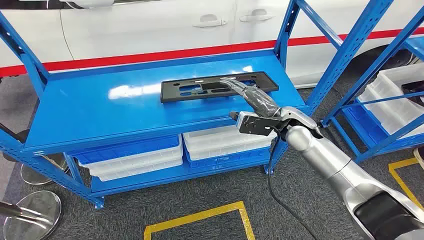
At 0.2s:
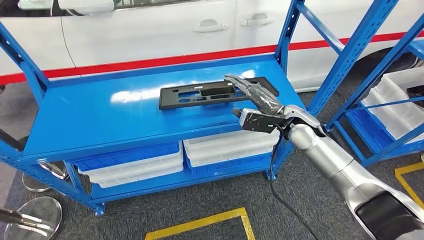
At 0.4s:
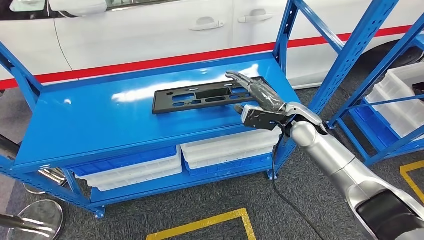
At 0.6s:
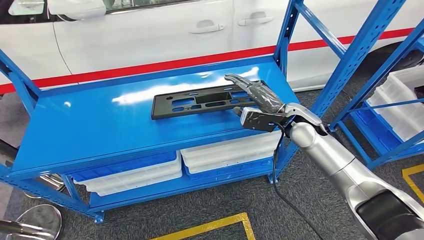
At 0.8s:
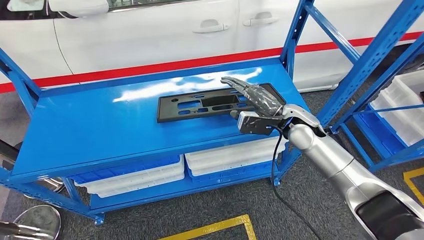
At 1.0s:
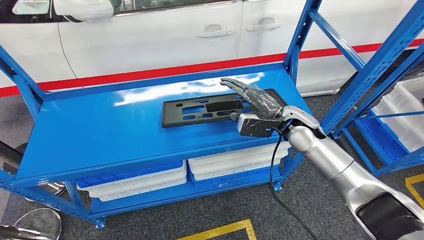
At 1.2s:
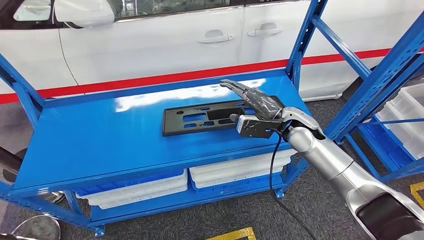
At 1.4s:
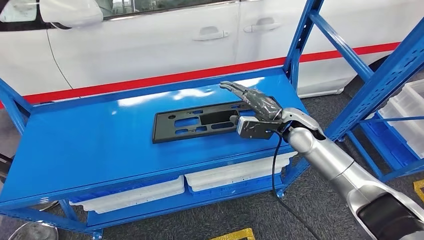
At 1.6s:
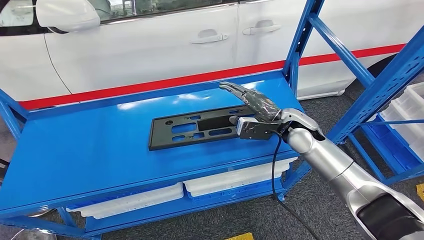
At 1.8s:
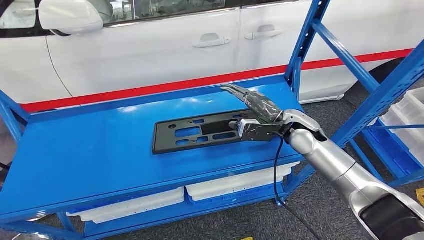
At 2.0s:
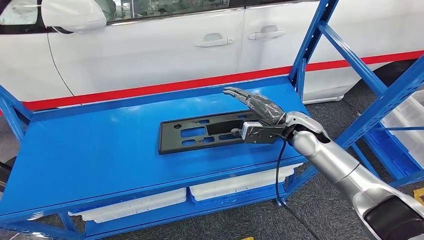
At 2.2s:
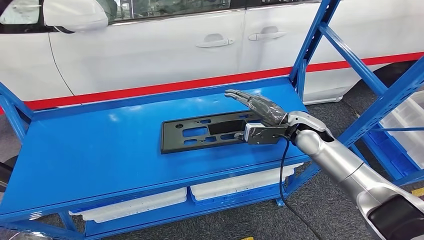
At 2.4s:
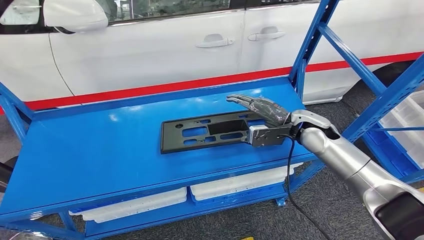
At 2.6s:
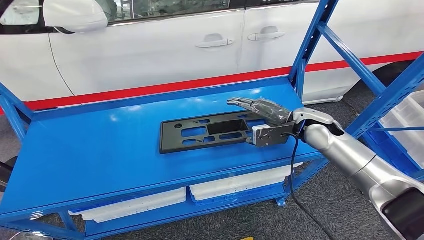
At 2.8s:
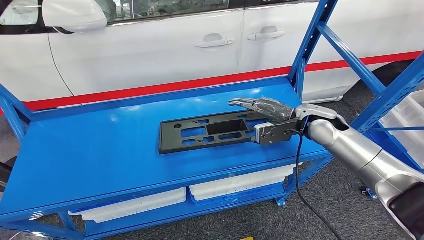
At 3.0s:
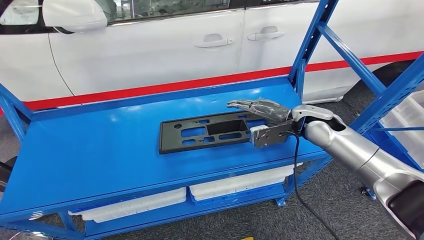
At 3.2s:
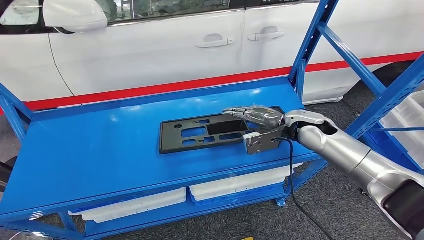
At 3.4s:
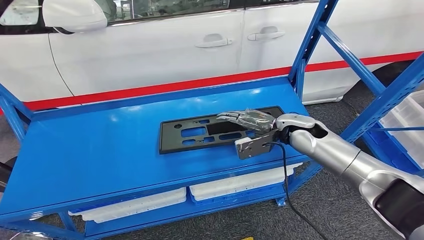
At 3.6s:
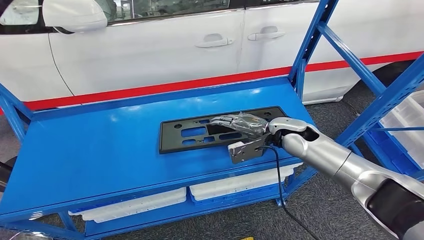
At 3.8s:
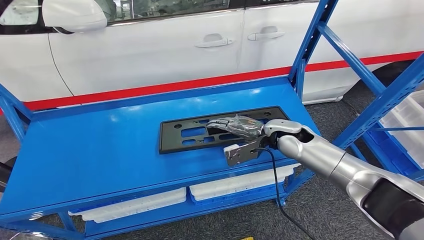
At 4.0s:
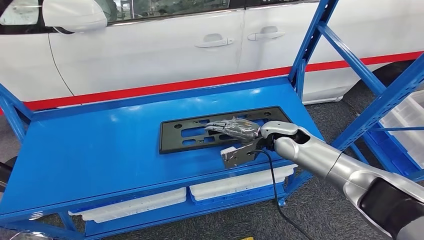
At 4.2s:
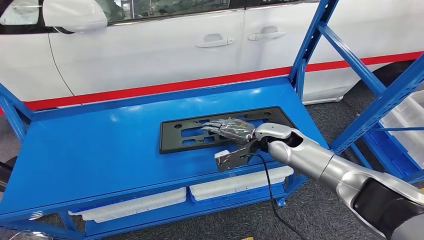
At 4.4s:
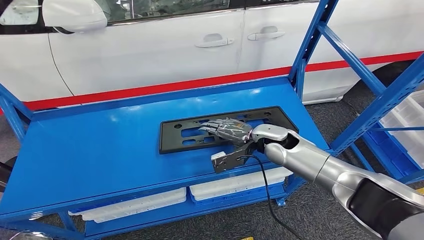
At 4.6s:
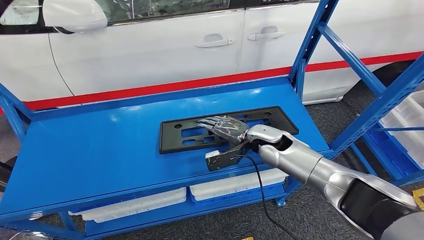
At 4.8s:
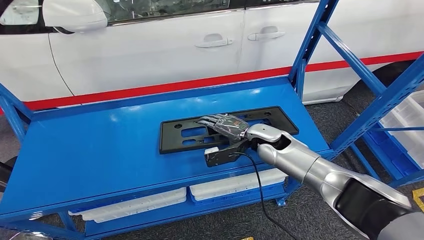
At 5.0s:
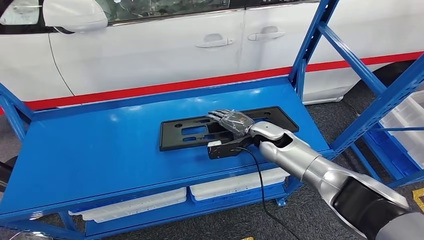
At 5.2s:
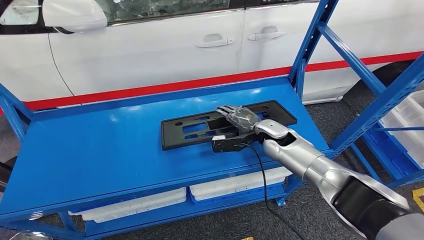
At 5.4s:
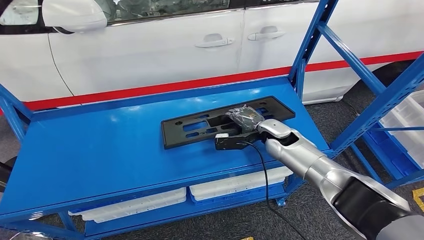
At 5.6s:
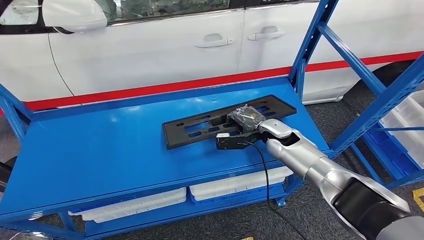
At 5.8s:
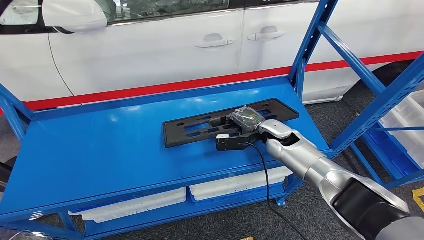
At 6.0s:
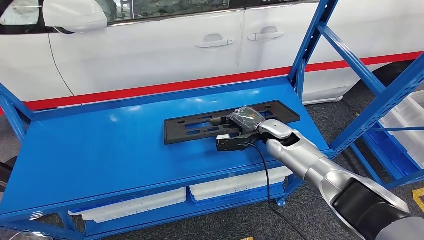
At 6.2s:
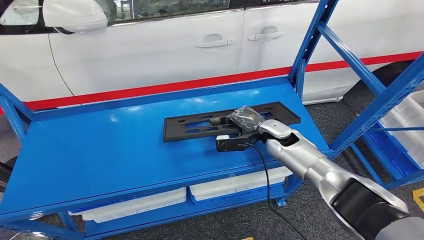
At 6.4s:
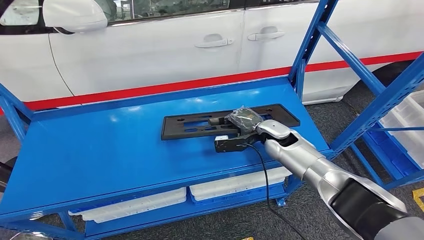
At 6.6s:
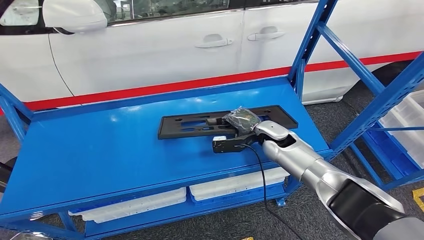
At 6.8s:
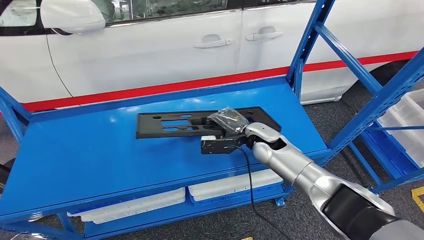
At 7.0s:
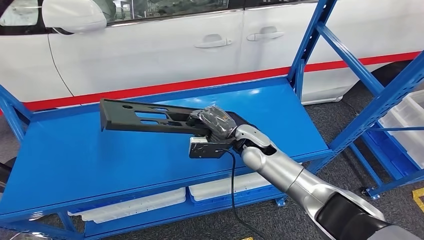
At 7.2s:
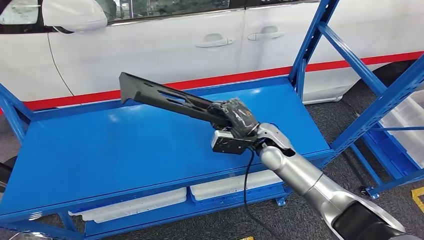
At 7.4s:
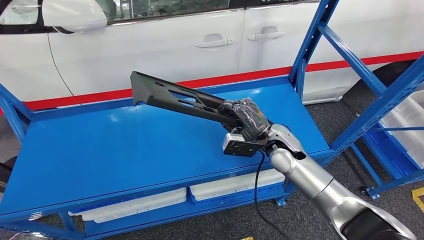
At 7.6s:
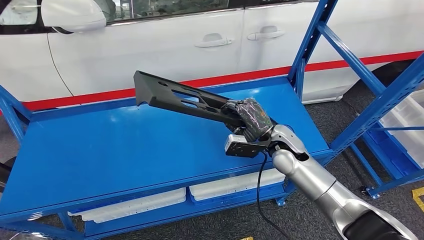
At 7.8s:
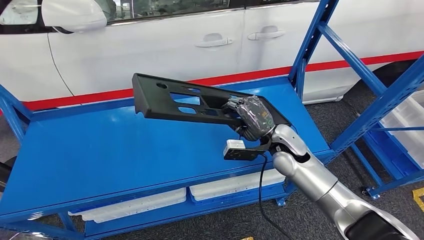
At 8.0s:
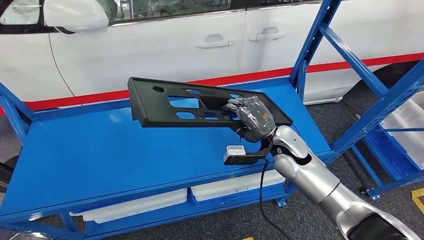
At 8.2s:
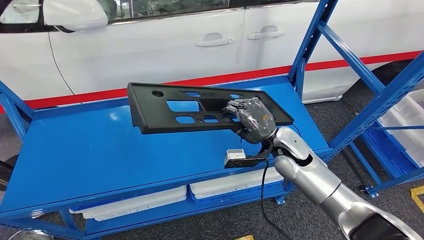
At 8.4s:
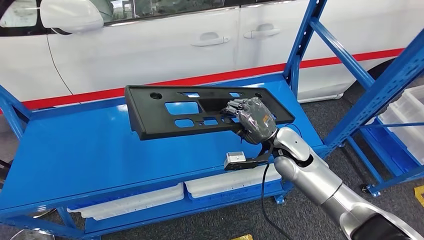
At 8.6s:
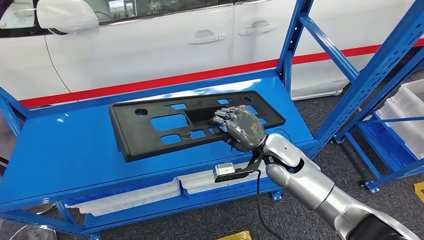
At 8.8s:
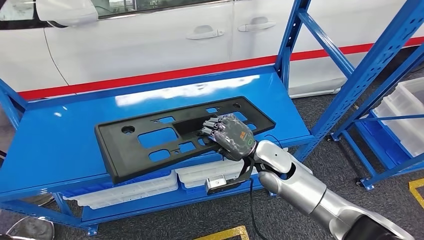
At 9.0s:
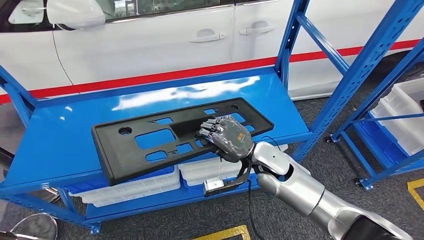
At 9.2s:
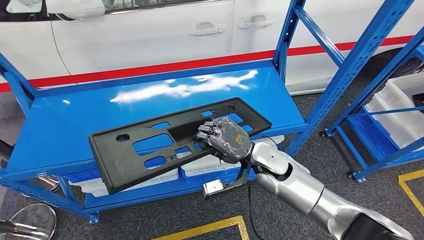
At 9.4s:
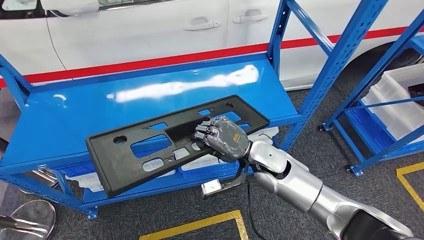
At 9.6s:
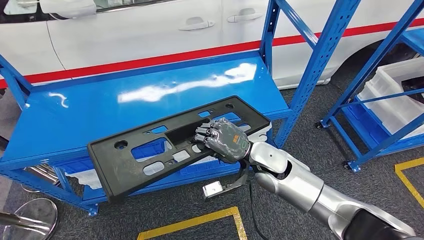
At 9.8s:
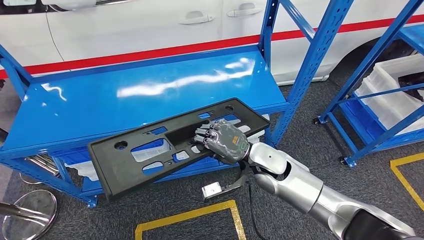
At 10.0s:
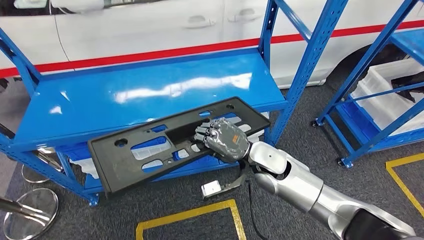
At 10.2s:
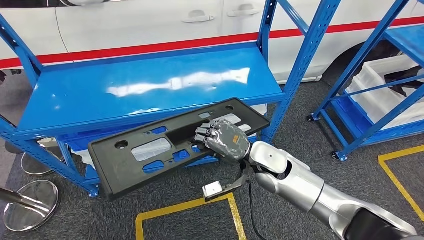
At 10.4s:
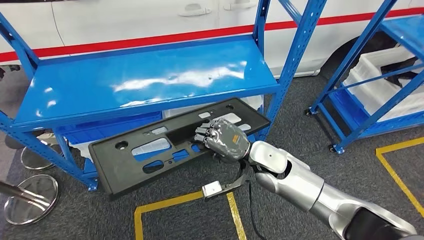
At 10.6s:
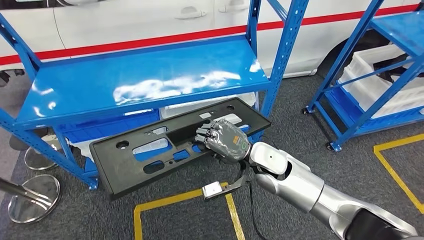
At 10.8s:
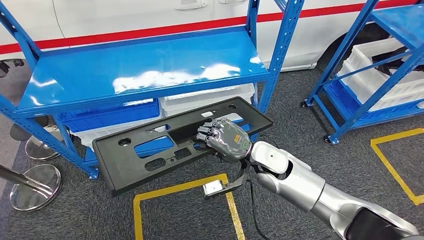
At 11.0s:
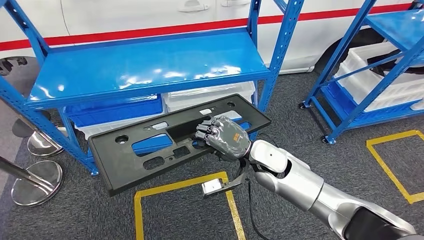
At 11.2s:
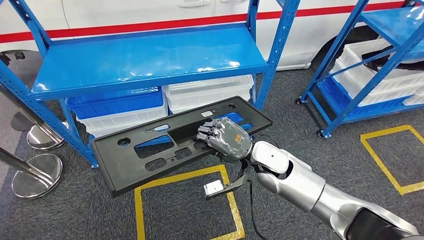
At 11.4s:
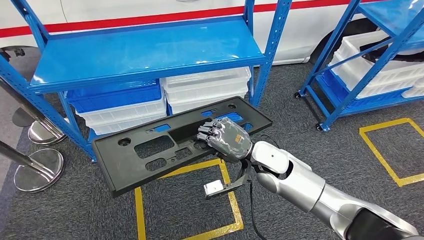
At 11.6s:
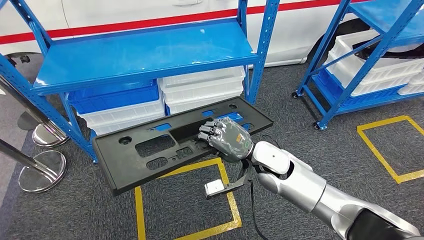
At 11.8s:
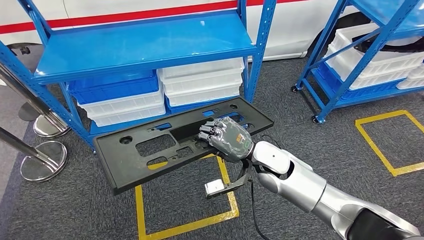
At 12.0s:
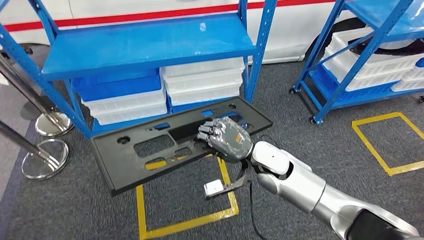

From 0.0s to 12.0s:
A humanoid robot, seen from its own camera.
Step, from 0.0s to 9.6s: Pick up the large material from the shelf.
From 3.0s to 4.4s: The right hand heads to the left and downward, covering roughly 10 cm.
From 4.4s to 6.0s: The right hand moves roughly 5 cm.
From 6.0s to 7.6s: The right hand goes about 5 cm backward, and reaches approximately 10 cm to the left, then returns; the left hand travels to the left and back again, roughly 10 cm each way.

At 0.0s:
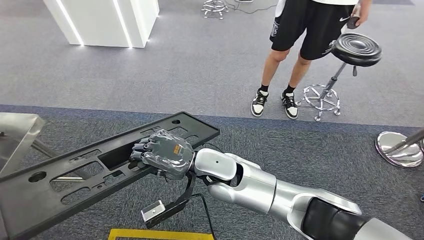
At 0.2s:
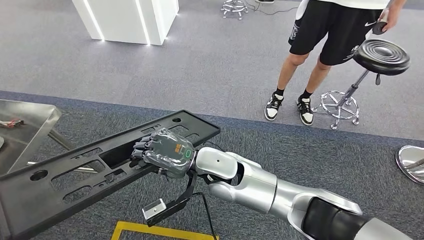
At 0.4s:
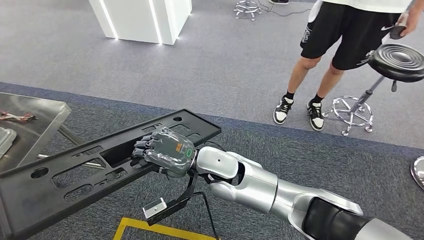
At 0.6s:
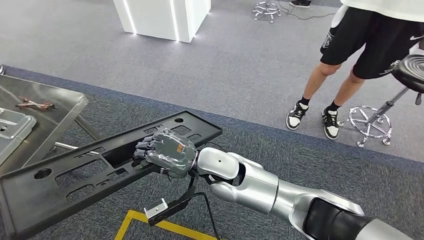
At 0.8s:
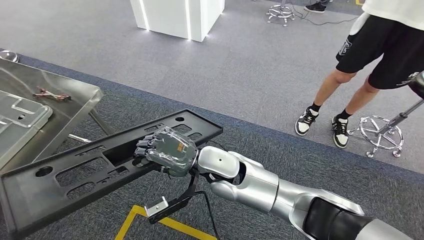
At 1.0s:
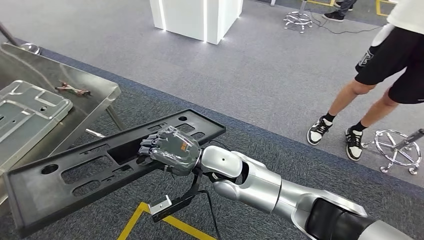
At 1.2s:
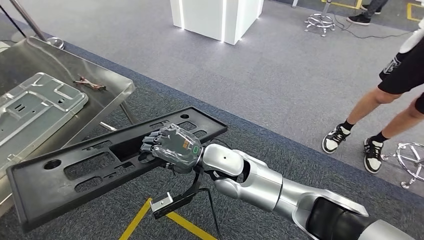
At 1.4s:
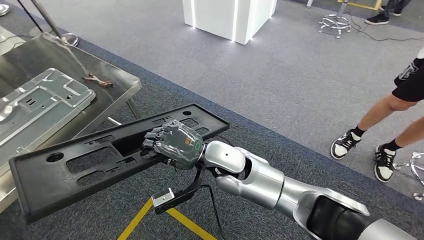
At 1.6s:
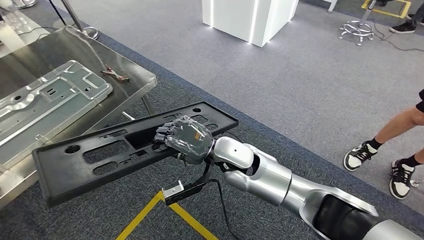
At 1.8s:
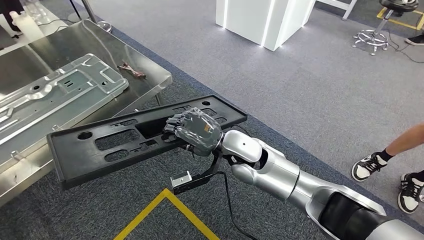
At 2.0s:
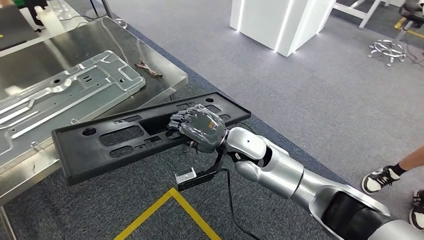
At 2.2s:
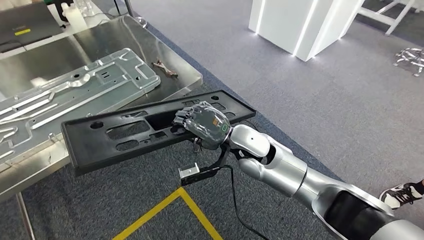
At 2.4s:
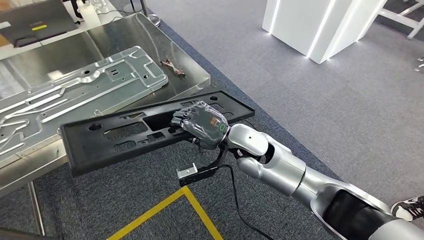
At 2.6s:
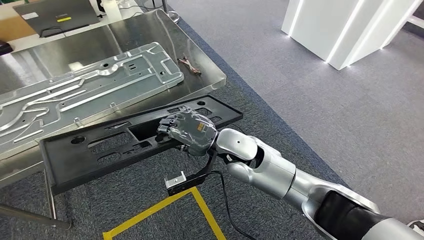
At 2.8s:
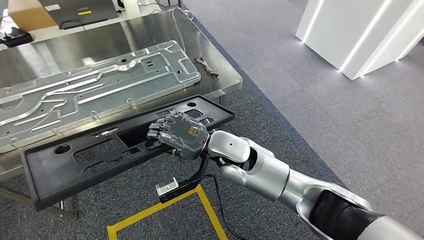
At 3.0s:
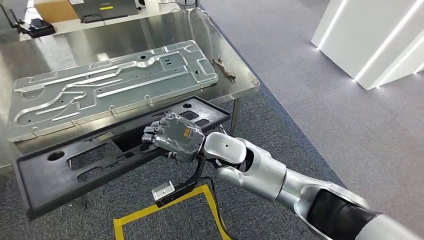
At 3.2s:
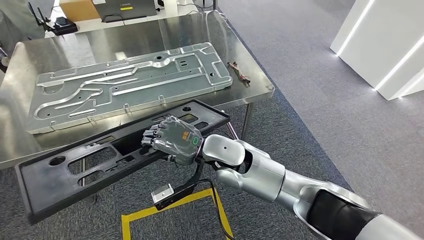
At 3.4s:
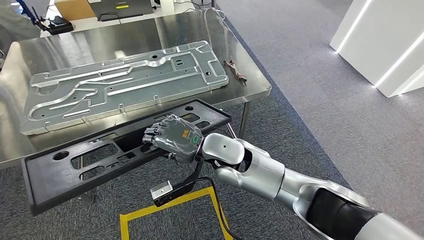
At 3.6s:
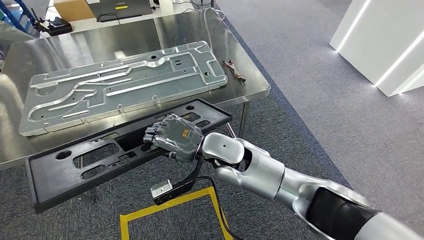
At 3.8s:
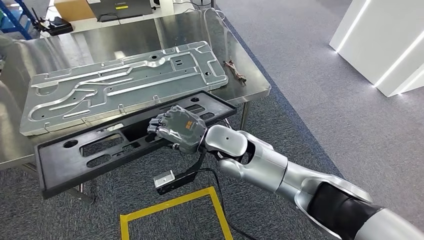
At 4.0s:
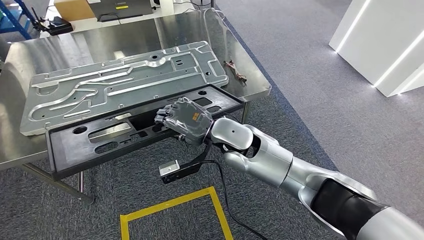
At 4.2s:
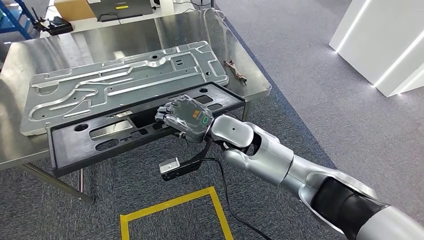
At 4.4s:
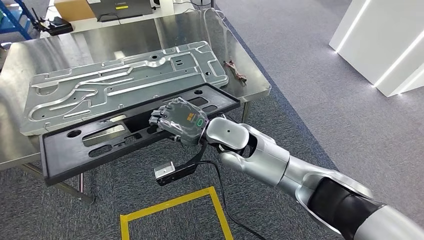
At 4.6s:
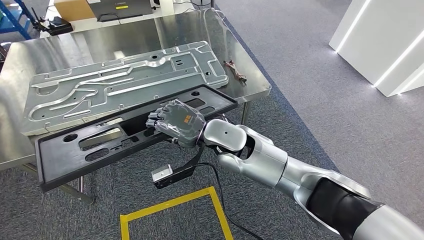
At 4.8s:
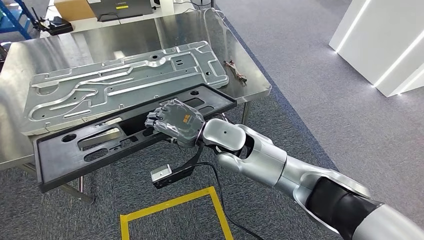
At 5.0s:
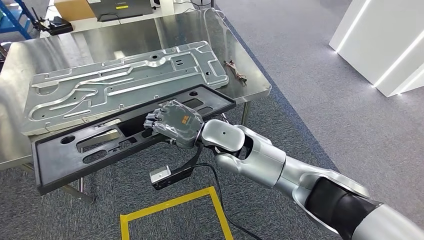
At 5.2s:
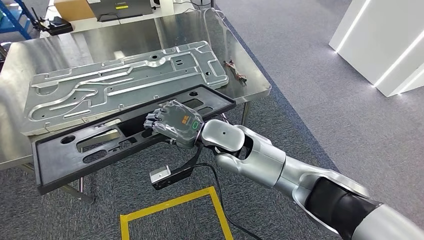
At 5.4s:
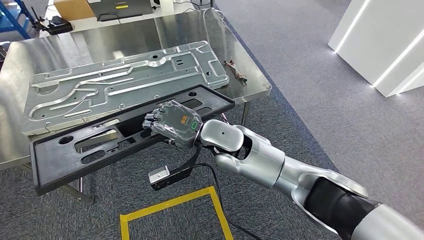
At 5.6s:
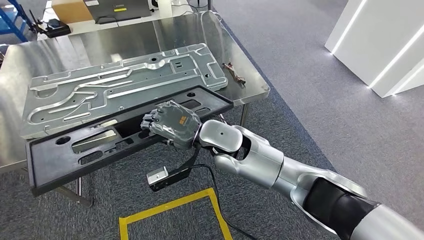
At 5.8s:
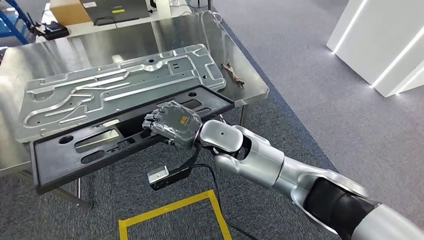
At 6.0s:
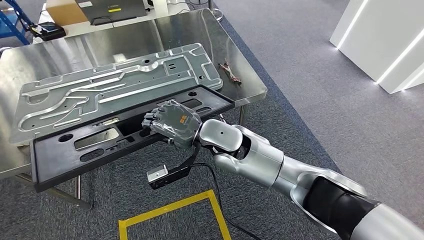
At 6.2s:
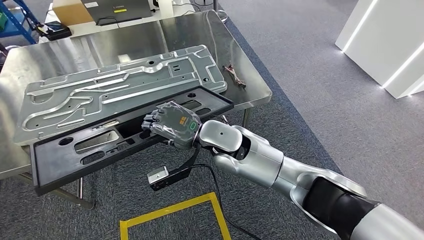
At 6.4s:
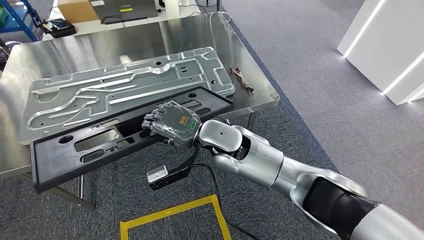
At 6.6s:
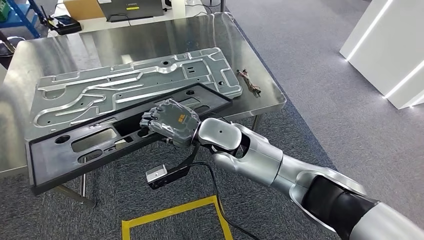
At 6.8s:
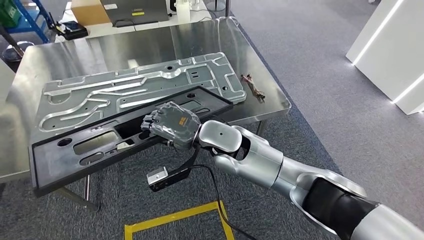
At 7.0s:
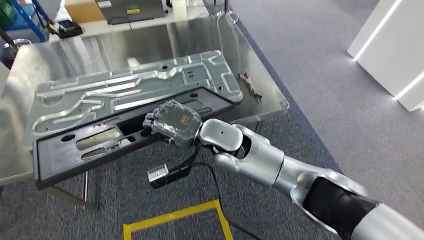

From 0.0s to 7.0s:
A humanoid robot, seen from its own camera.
Step, from 0.0s to 2.6s: Move the large material to the workbench.
